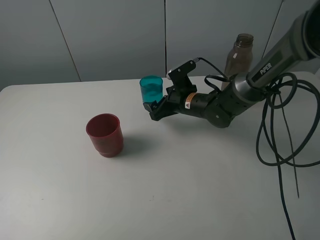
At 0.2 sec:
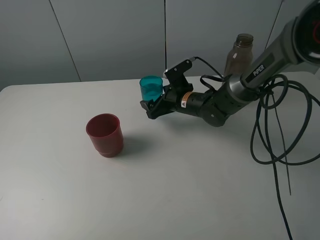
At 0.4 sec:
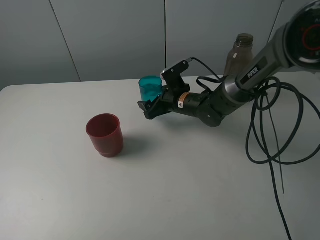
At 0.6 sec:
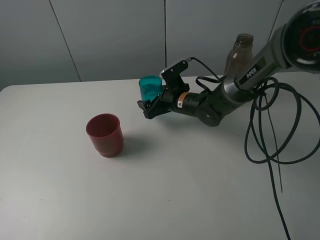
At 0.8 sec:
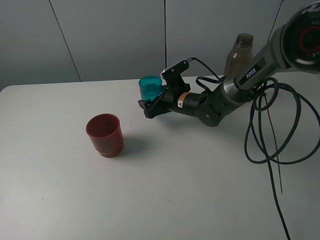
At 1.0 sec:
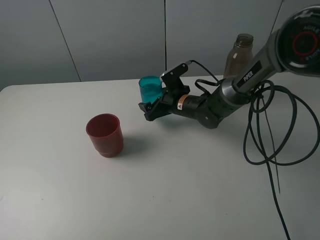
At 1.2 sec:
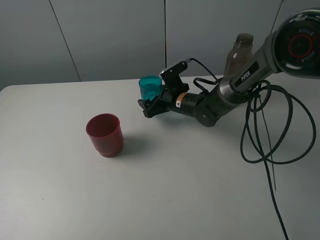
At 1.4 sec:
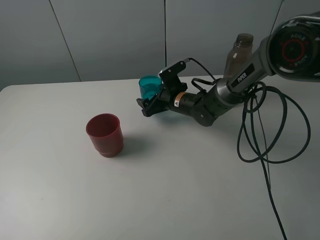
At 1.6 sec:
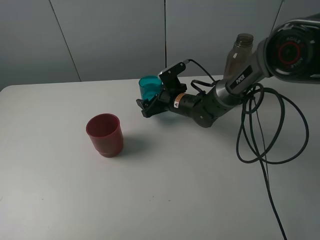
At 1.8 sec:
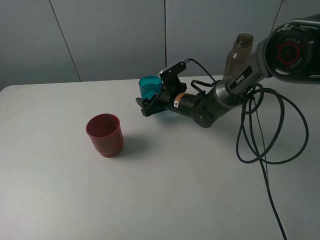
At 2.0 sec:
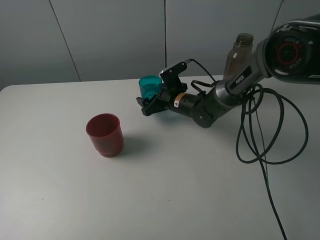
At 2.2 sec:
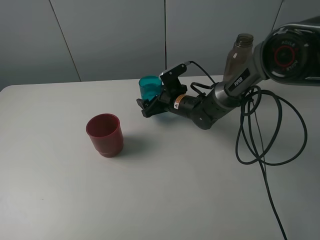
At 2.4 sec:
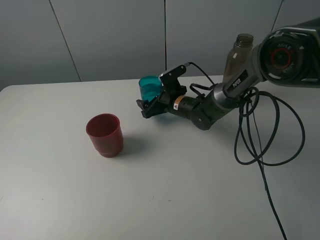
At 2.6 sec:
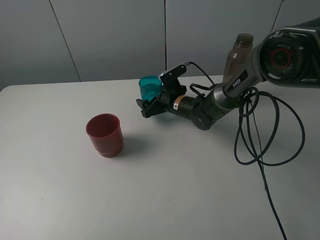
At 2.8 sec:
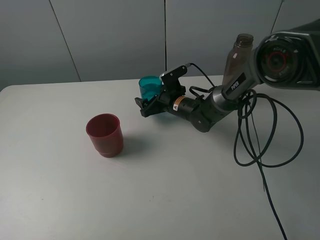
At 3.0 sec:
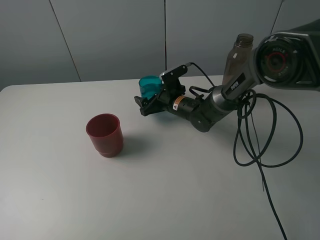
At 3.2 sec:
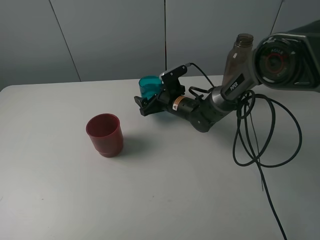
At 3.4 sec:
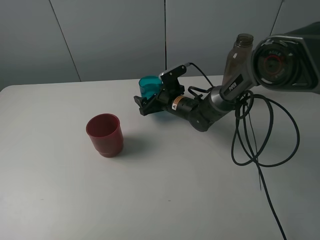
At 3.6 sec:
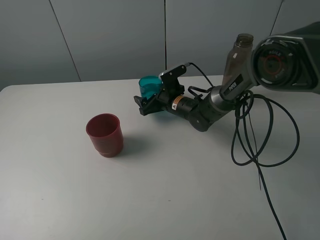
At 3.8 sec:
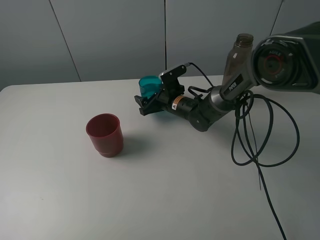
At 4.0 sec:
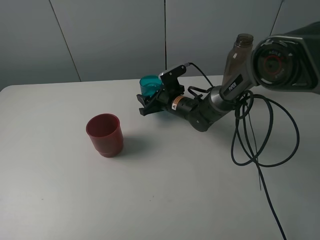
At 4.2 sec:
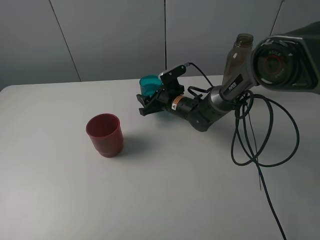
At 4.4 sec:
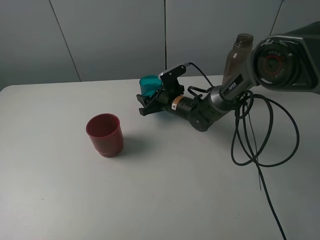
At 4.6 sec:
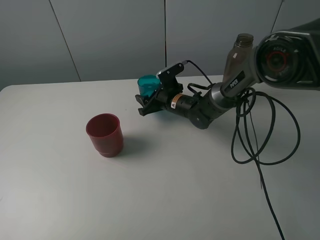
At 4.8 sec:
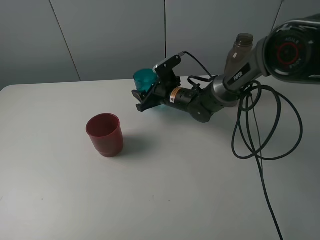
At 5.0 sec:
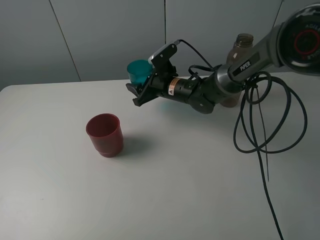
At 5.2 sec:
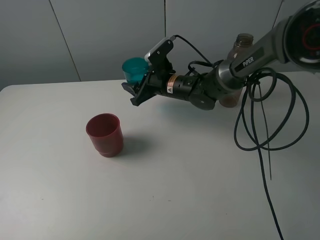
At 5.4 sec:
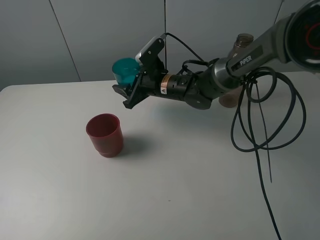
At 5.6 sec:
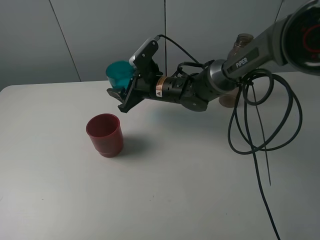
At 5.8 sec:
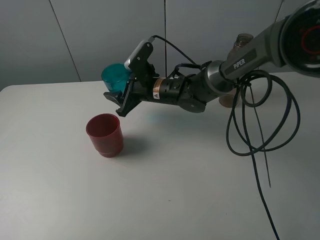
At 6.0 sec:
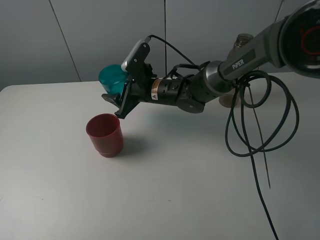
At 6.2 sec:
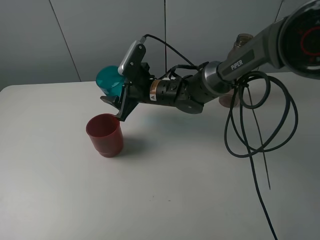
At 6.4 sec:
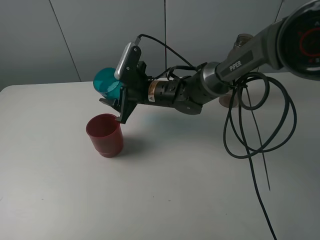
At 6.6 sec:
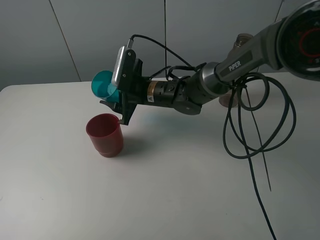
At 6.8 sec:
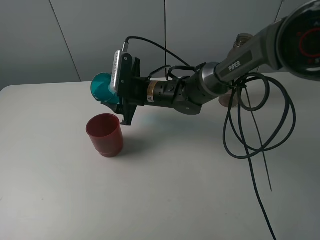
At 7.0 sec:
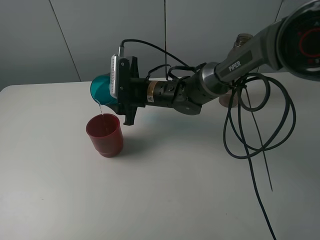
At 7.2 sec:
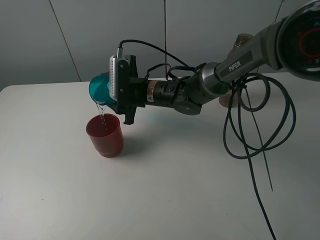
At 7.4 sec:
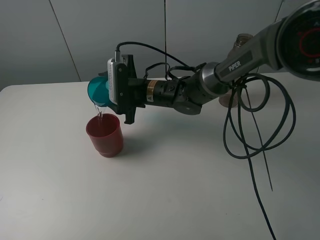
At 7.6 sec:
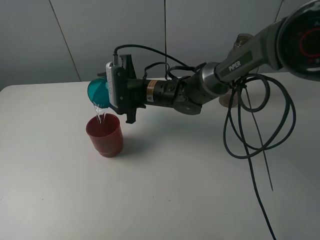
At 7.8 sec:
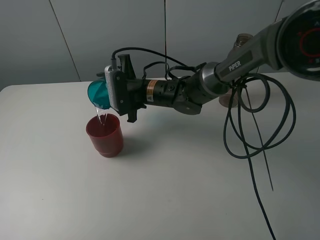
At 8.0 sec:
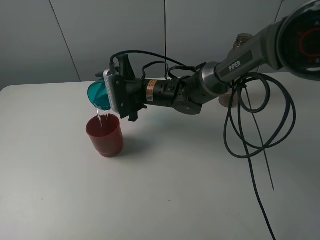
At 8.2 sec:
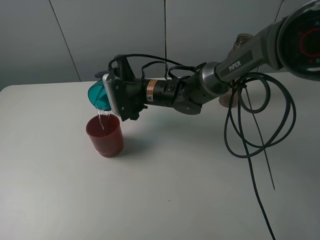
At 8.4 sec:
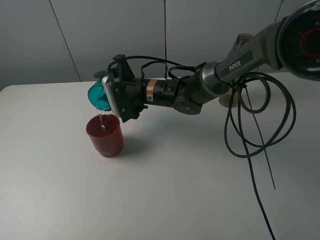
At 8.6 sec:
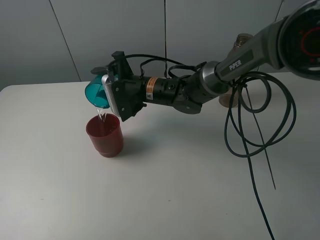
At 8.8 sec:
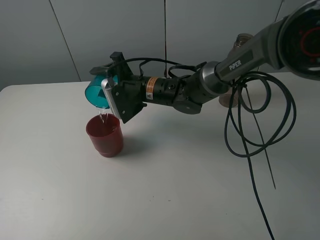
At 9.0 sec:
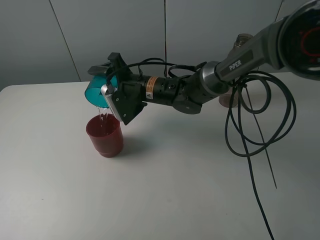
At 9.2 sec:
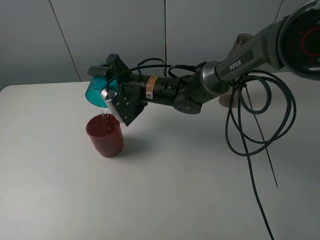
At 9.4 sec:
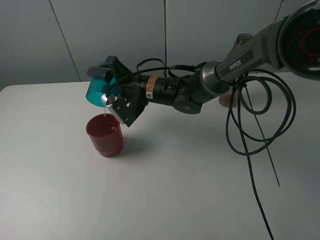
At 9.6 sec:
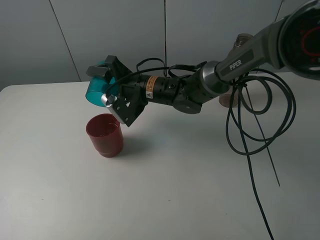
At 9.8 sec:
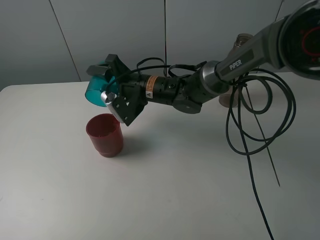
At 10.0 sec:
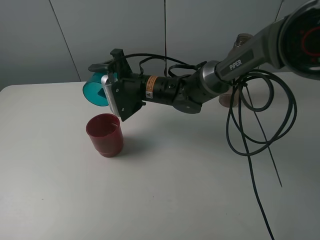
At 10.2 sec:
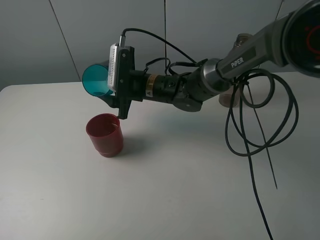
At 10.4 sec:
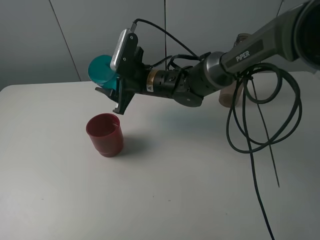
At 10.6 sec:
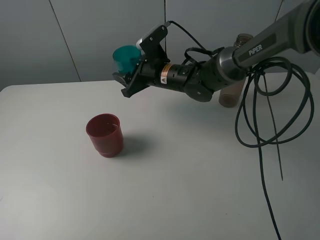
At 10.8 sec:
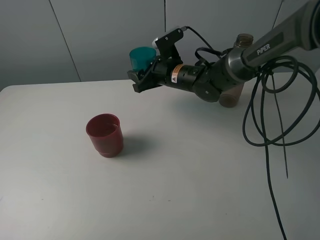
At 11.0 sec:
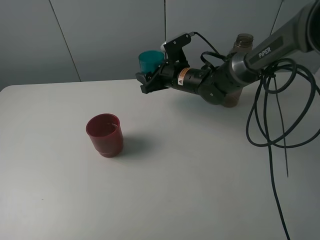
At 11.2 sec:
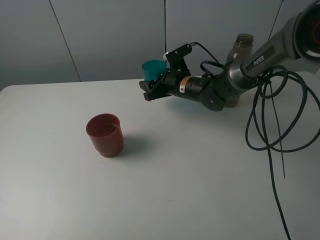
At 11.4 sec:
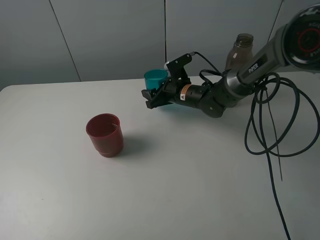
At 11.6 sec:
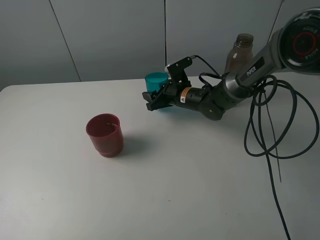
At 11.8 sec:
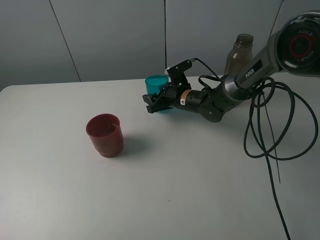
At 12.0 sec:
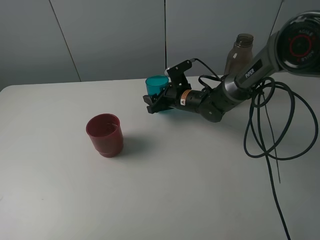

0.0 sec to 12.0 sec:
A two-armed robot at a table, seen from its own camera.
Task of the whole recording: pick up the bottle and pour water into the cup, then pick up the cup containing water and pour it into another cup.
Step, 0.0 sec to 4.2 sec: Grasp the blue cup with the right gripper.
Step, 4.4 sec to 10.0 sec: Pour water from blue cup to red cup with the right gripper.
0.0 sec to 3.0 sec: The grippers make only small movements.
3.0 sec to 4.4 sec: The right gripper closes up.
4.4 sec to 6.0 sec: The right gripper shifts some 10 cm upward and to the left.
10.4 sec to 12.0 sec: The right gripper heads downward and to the right, covering some 10 cm.

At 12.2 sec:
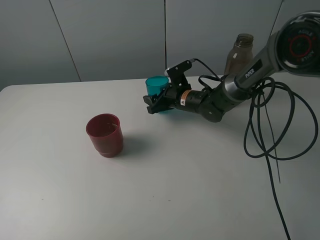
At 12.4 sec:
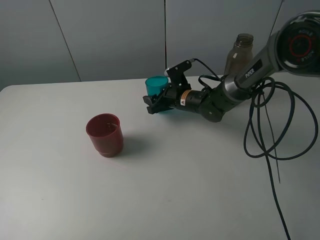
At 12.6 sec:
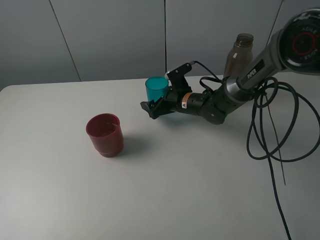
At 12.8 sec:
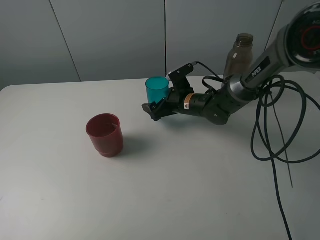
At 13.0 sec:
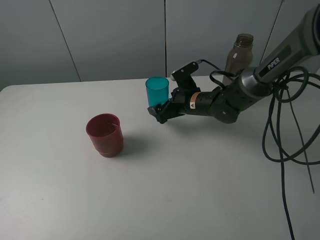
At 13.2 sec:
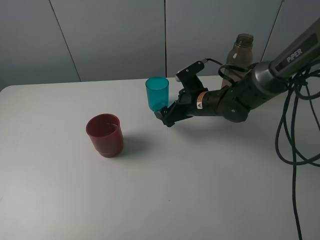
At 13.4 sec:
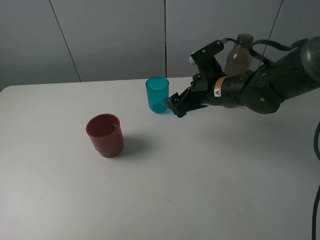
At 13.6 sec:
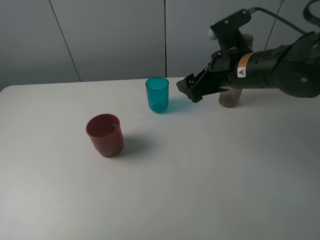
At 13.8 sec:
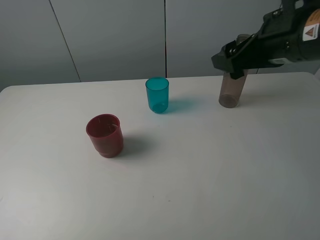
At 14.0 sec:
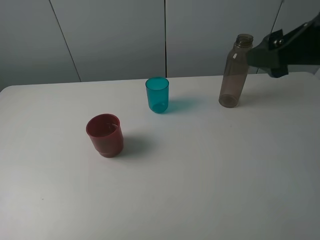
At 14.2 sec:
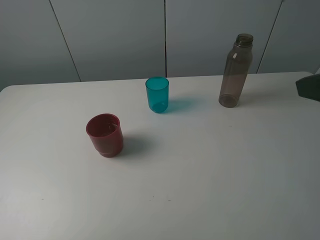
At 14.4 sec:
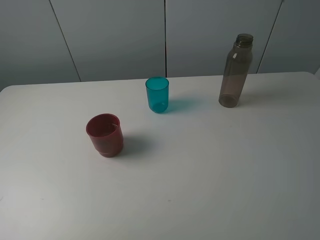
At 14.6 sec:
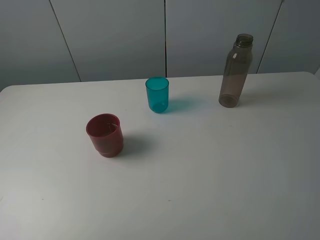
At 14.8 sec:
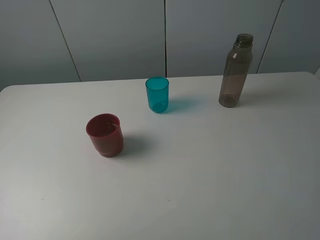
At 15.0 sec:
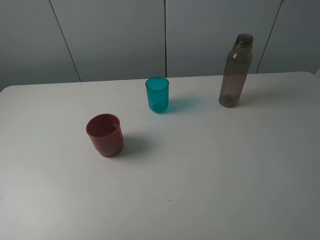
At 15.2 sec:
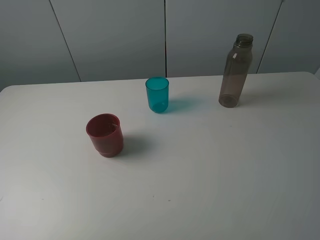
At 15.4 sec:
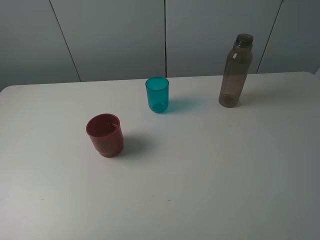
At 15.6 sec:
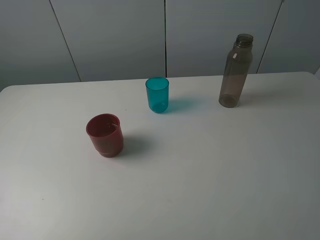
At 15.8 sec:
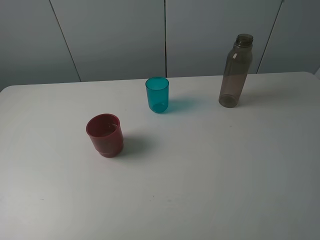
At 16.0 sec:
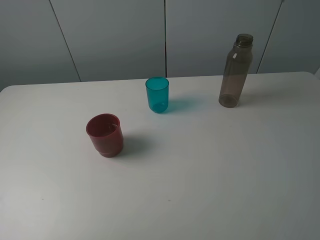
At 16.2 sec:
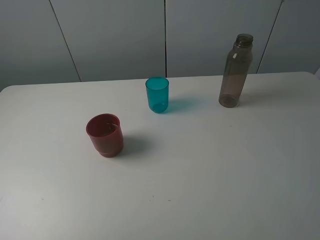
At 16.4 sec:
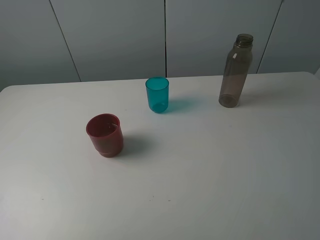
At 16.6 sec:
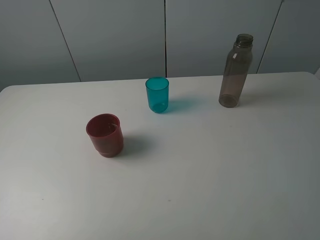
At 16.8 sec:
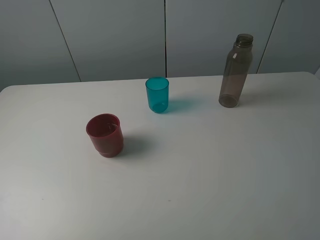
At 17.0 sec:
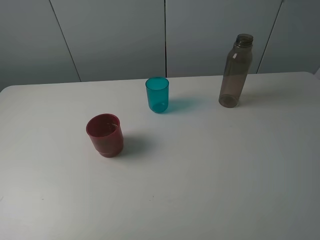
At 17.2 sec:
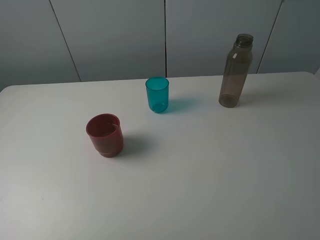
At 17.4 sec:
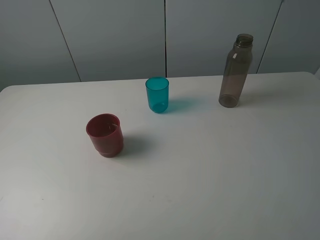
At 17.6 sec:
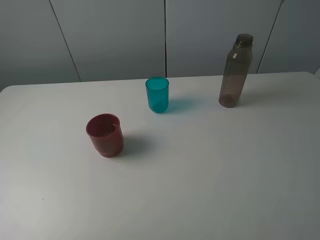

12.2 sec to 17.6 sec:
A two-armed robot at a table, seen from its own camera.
Task of the whole recording: pick up the bottle and pour water into the cup, then pick up the cup containing water and pour it into another cup.
12.2 sec to 13.6 sec: The right gripper moves upward, backward and to the right, roughly 25 cm, and opens up.
13.6 sec to 15.0 sec: The right gripper moves backward and to the right, approximately 30 cm.
16.2 sec to 17.6 sec: Both grippers stay put.
